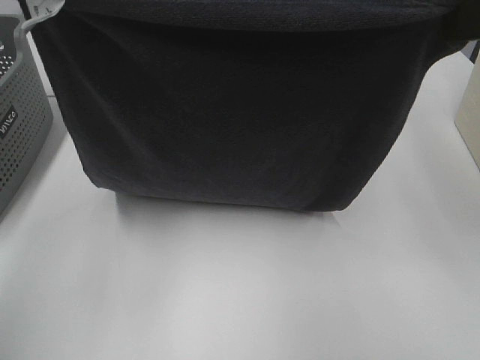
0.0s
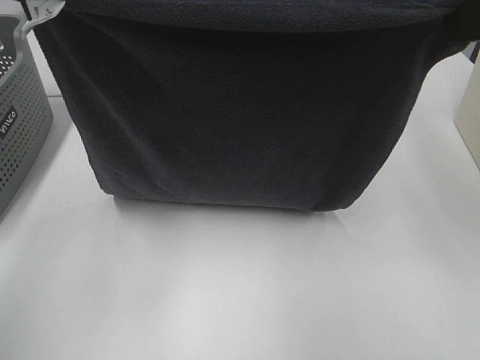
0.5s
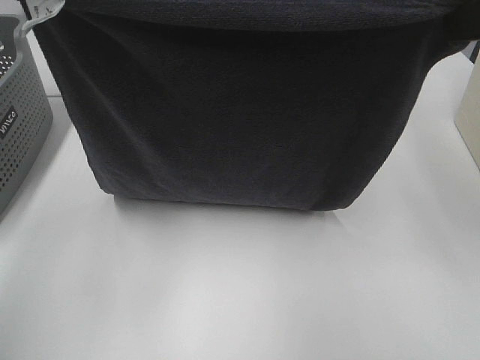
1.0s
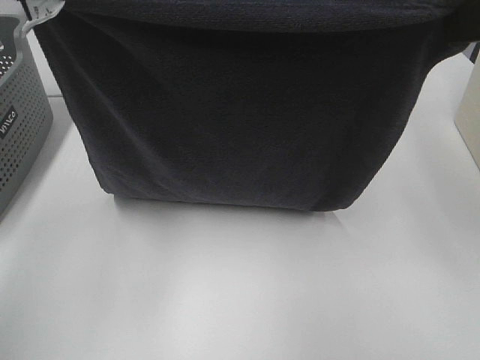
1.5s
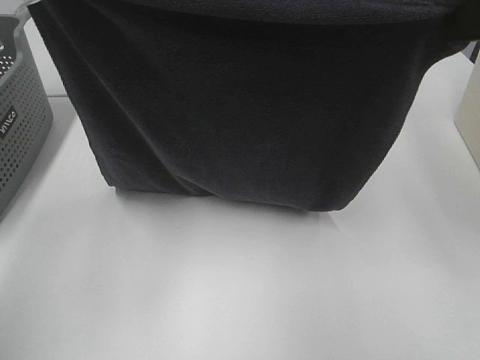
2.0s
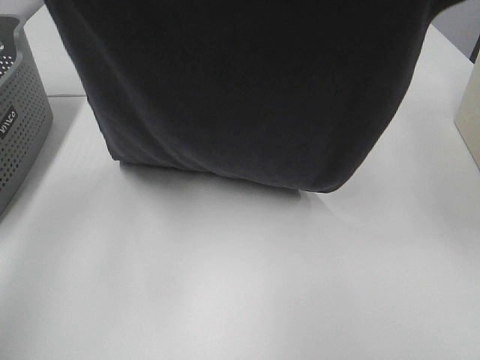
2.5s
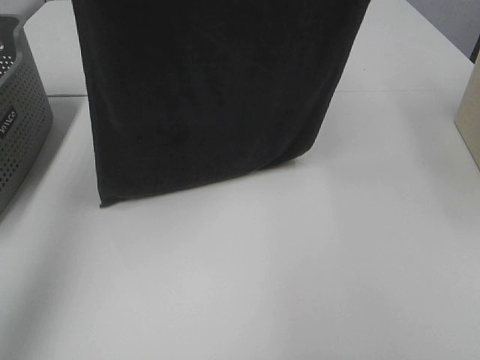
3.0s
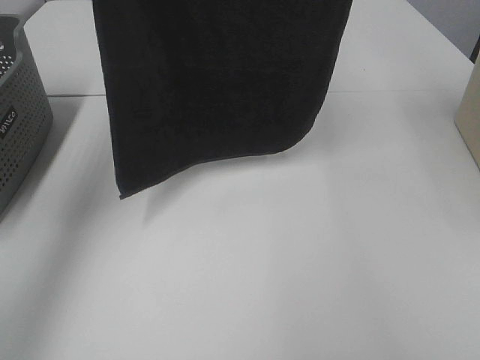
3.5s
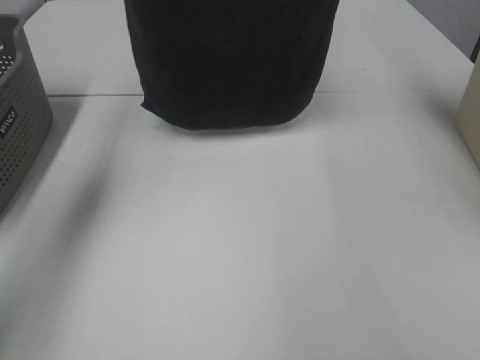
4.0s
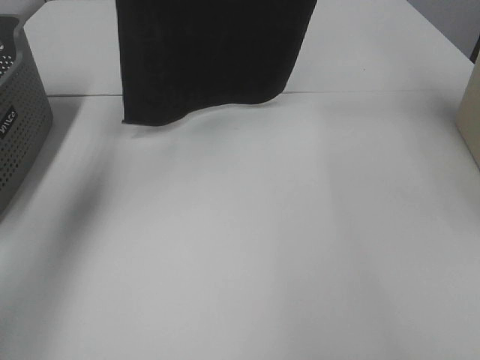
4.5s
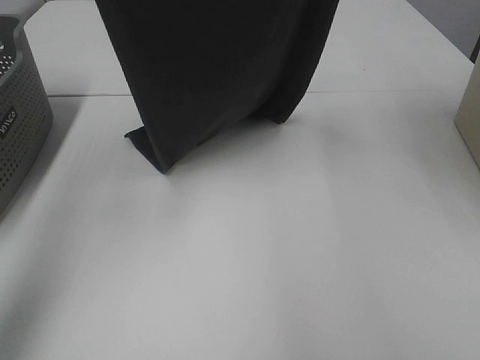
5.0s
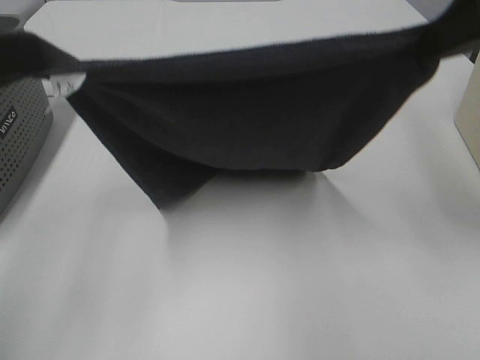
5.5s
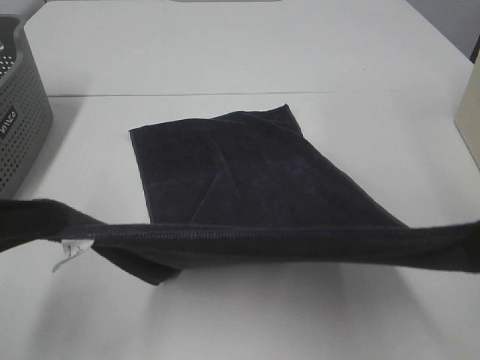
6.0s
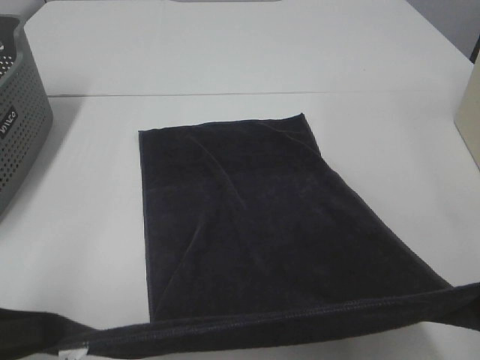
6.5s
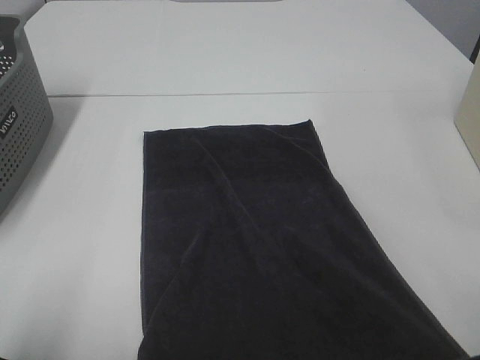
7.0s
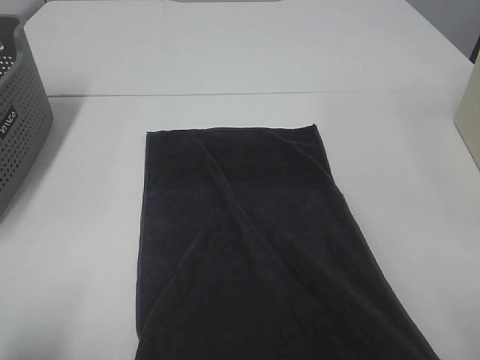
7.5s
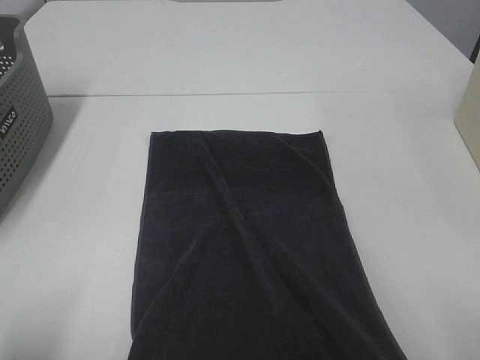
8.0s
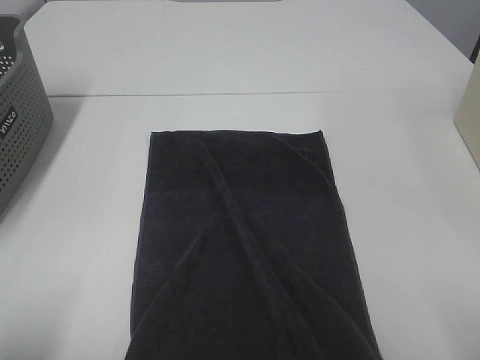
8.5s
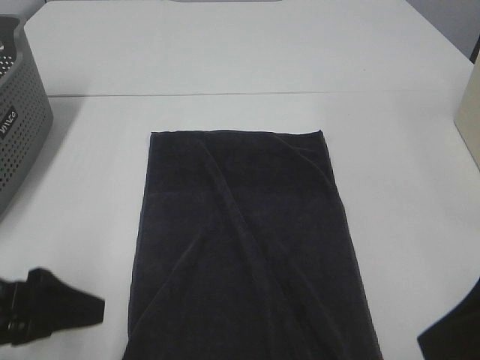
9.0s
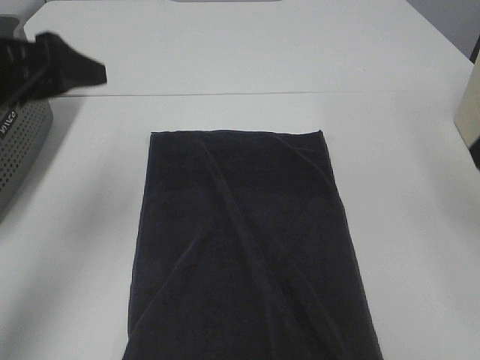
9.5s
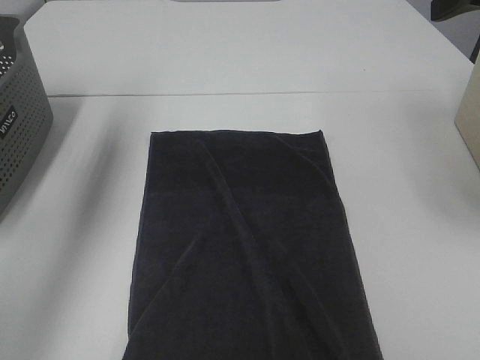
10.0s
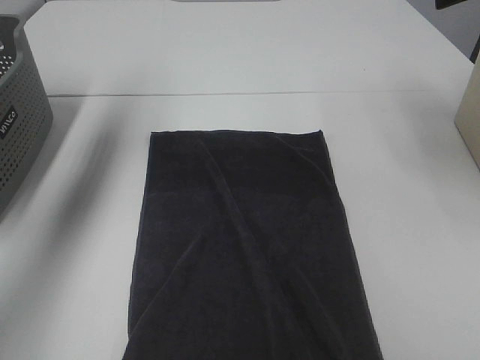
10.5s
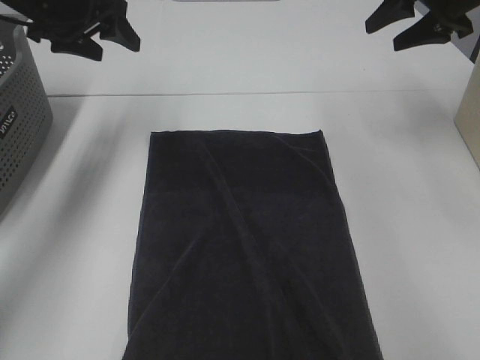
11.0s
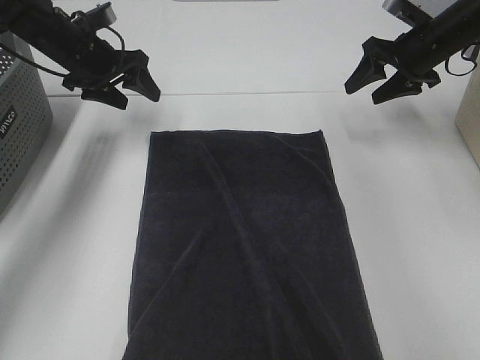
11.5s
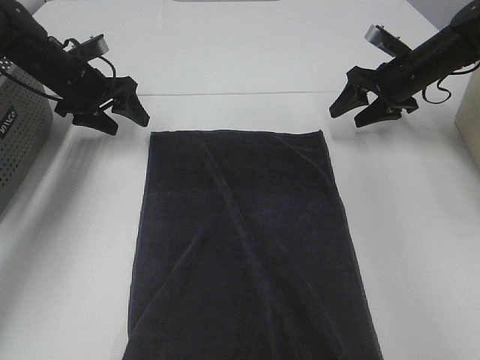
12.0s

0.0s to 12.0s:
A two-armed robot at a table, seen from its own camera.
Task of the whole recording: Remove the towel and place it.
Step, 0.0s to 2.0s: Left hand: spread the grey towel flat on the table.
Step, 0.0s to 2.0s: Right hand: spread the grey towel flat on the table.
Step, 2.5s to 7.5s: Left hand:adjust the gray towel.
Step, 2.5s to 7.5s: Right hand:adjust the gray towel.
0.0s to 2.0s: The grippers move only a little.
2.0s to 4.0s: The grippers both shift forward and upward by about 30 cm.
4.0s to 6.0s: Both grippers move backward and downward, about 40 cm.
6.0s to 8.0s: The right gripper travels downward and backward by some 10 cm. Meanwhile the left gripper is displaced downward by about 10 cm.
8.0s to 10.0s: Both grippers travel together forward and upward, roughly 35 cm. The right gripper opens. The left gripper opens its fingers.
10.0s to 12.0s: The two grippers go roughly 30 cm downward and forward.

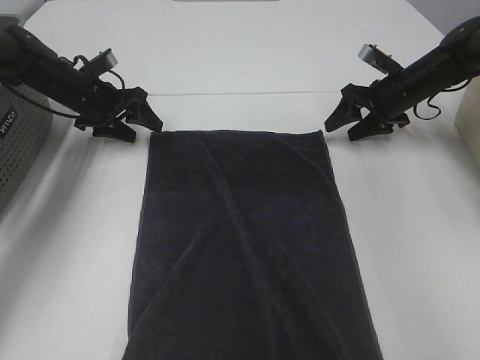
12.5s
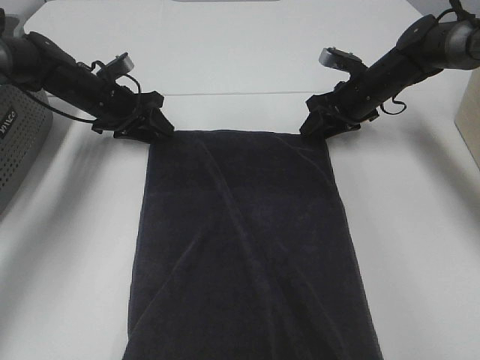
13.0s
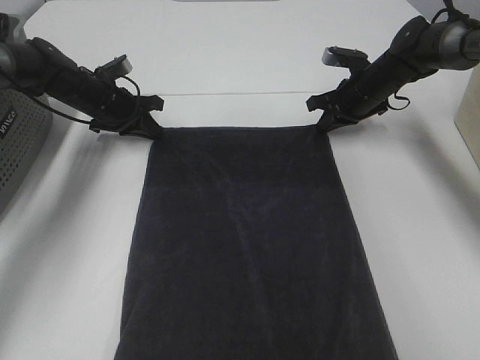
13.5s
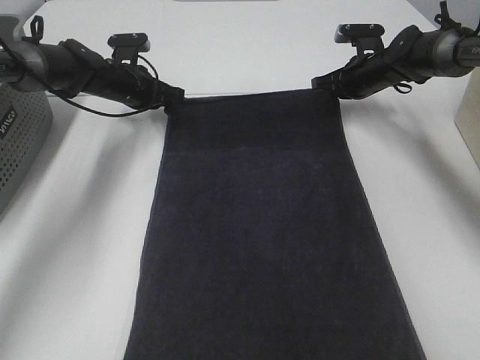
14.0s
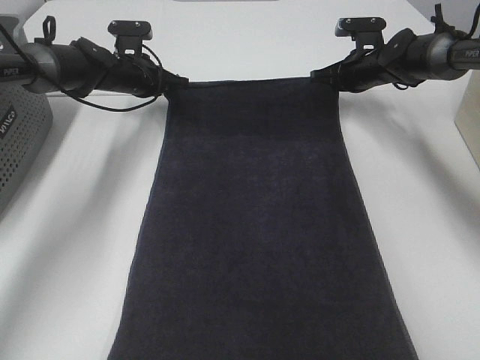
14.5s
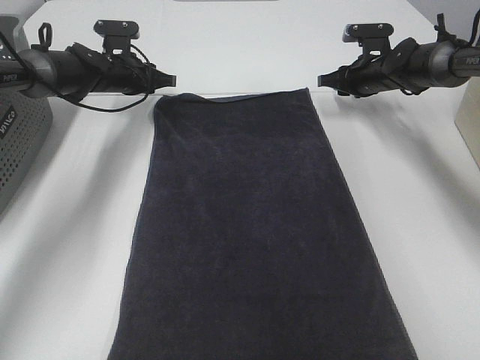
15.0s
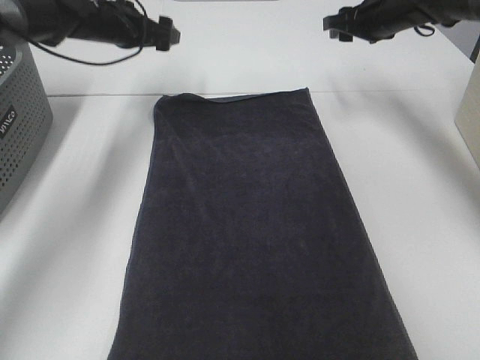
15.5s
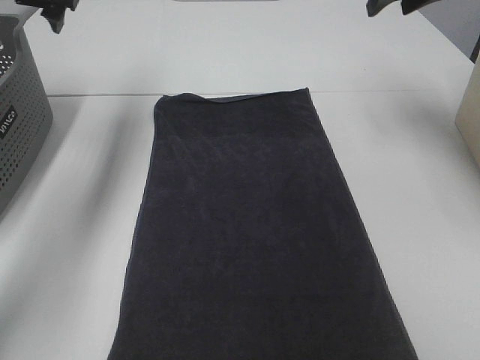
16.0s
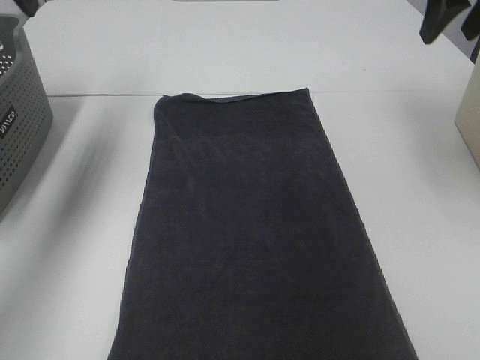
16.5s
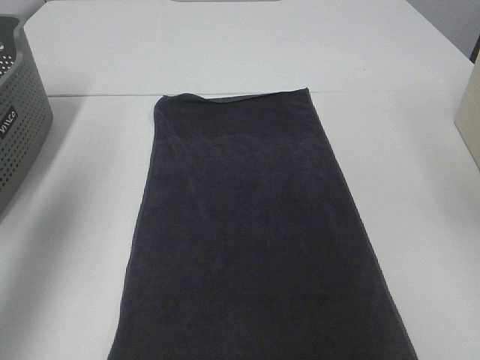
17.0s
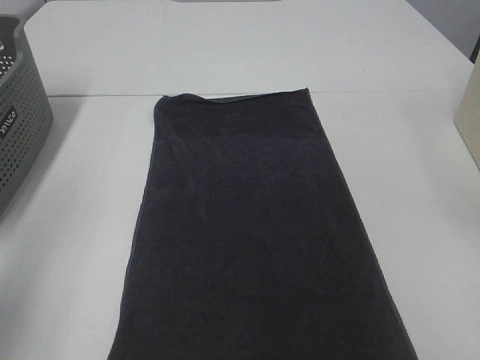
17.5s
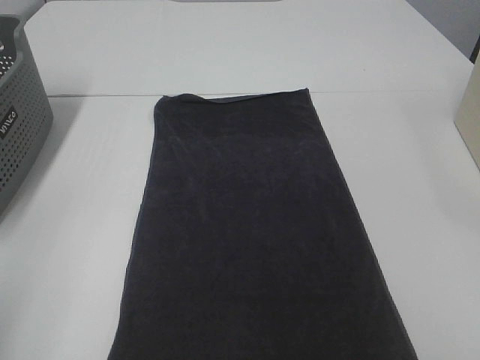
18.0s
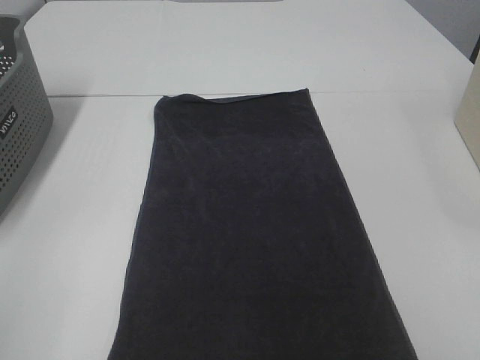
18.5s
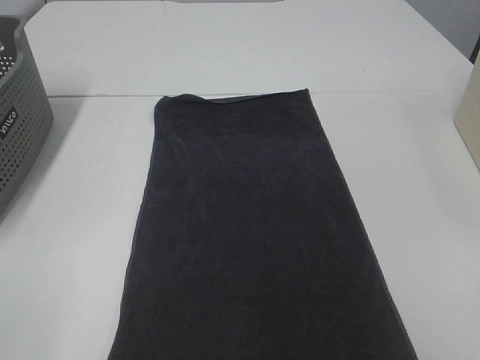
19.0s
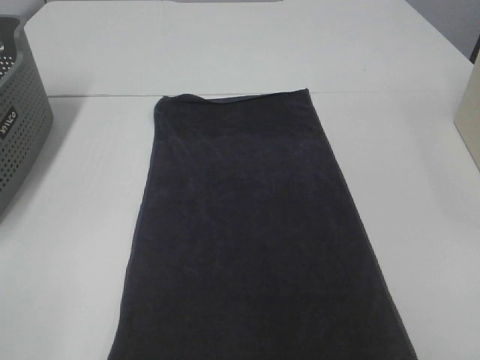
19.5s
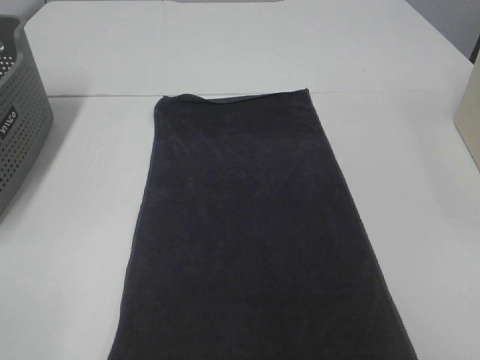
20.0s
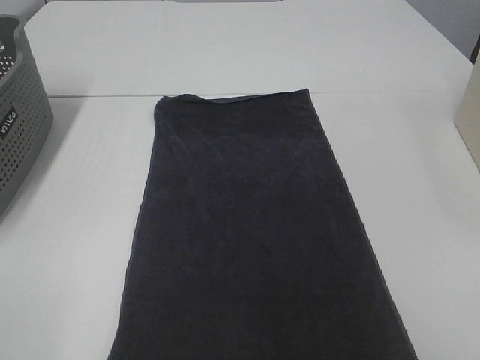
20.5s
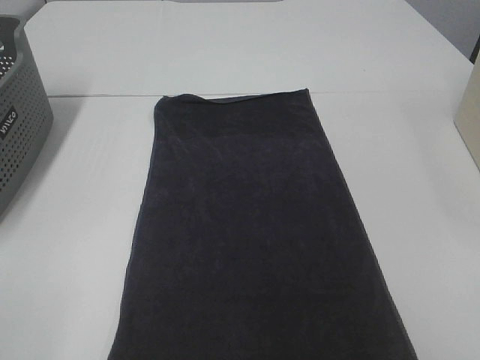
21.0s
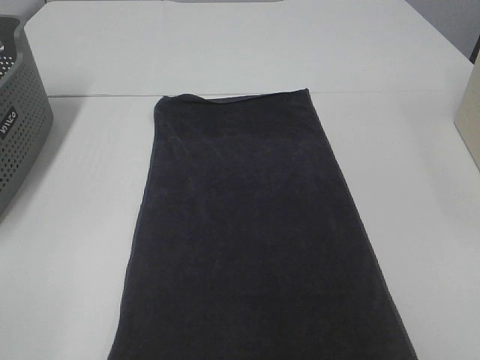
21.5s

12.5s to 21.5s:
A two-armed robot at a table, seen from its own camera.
Task of the whole recording: Remove the towel and place it.
12.5s to 14.5s: The right gripper travels forward by some 5 cm, and closes. Meanwhile the left gripper heads to the right, covering about 5 cm, and closes.
14.5s to 17.0s: The grippers both shift backward and upward by roughly 40 cm. The right gripper opens up. Meanwhile the left gripper opens up.
17.0s to 19.5s: The left gripper heads backward, covering approximately 25 cm.
19.5s to 21.5s: The two grippers keep their place.

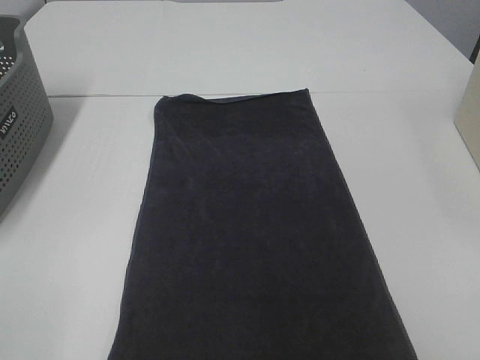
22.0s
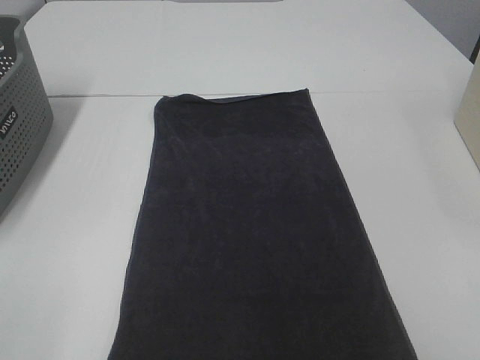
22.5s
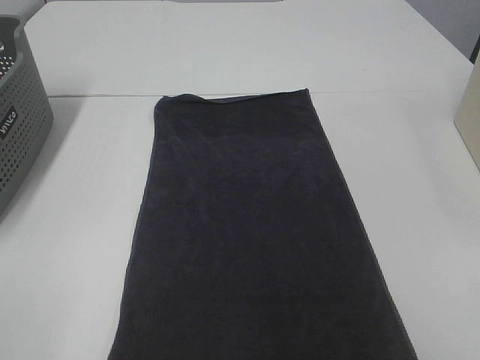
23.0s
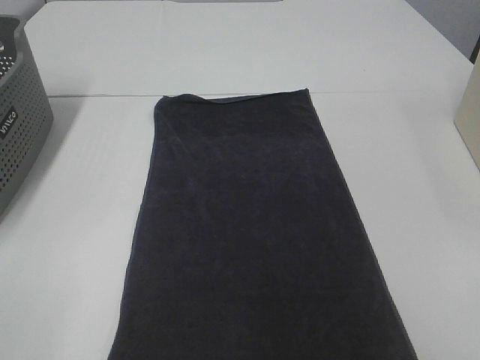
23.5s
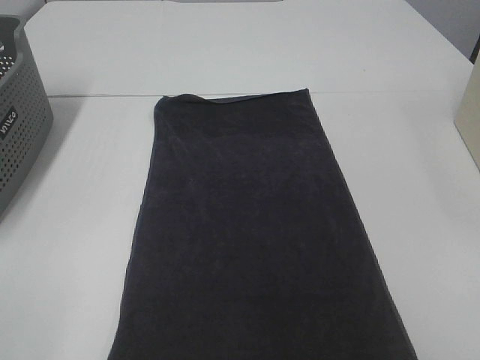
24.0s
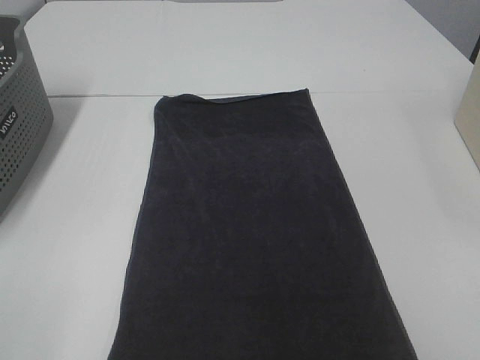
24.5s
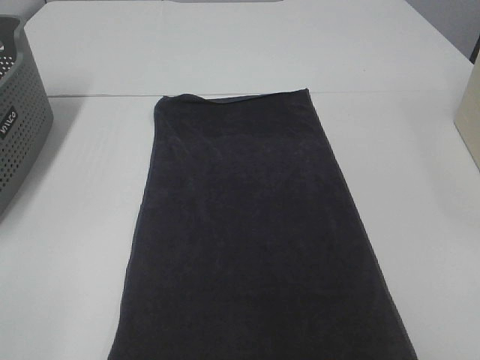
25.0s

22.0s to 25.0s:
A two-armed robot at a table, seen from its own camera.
Task of the whole recording: Remove the towel and place it.
22.0s to 25.0s: The two grippers keep their place.

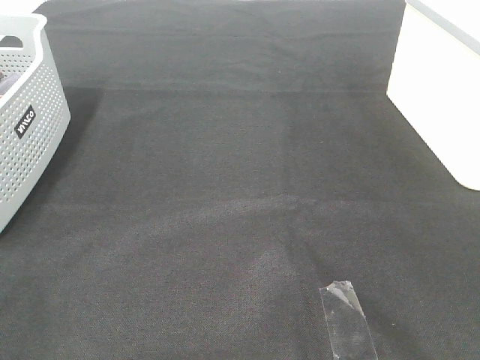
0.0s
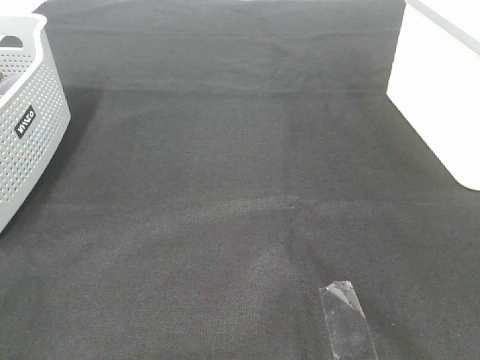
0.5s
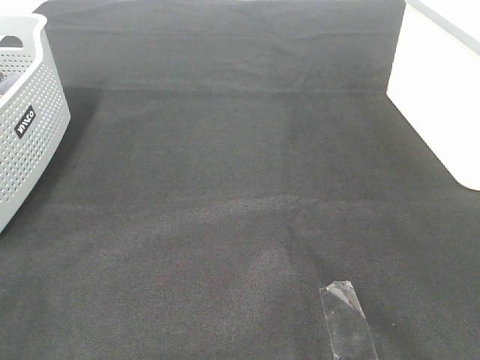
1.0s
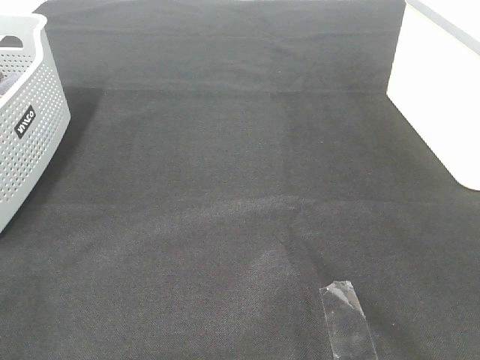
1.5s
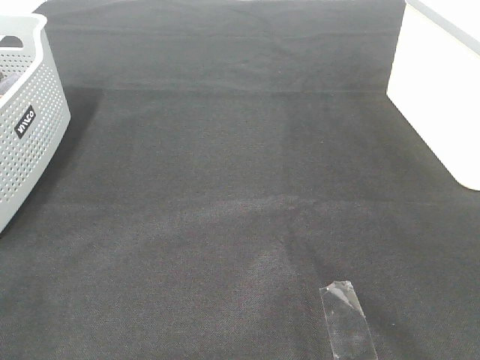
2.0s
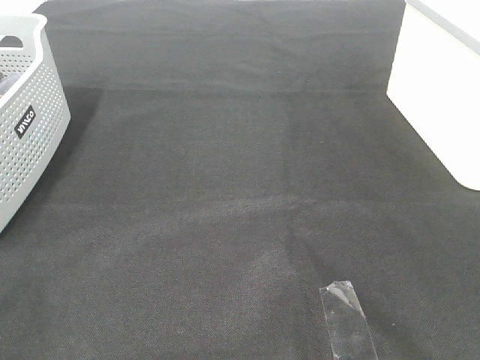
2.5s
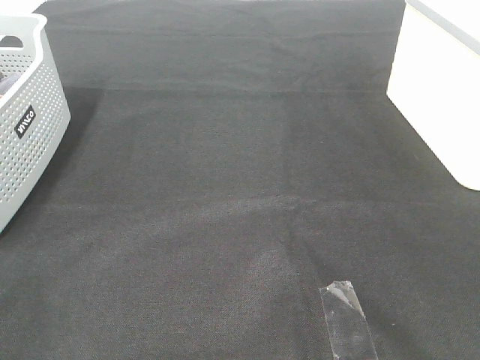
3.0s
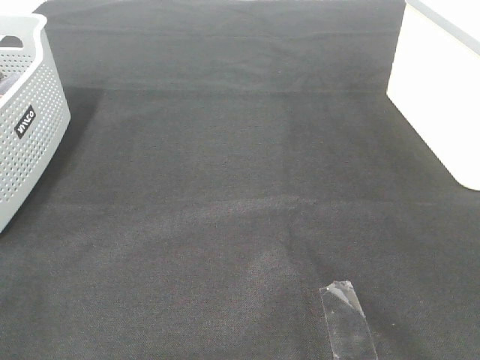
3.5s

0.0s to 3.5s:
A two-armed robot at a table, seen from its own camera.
Task of the whole recording: Remove the towel and place it.
0.0s to 3.5s: Neither gripper changes place.
